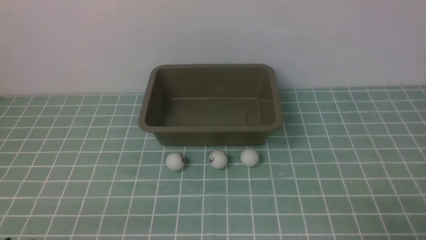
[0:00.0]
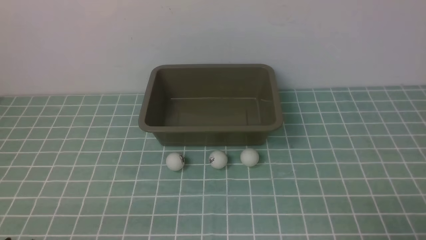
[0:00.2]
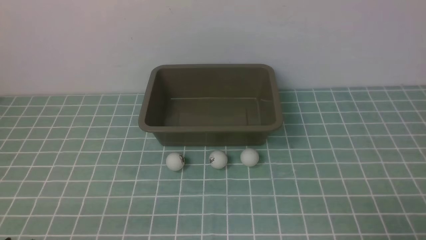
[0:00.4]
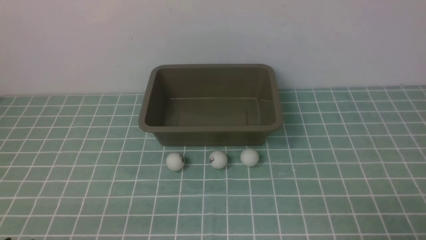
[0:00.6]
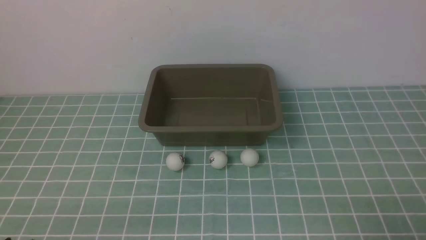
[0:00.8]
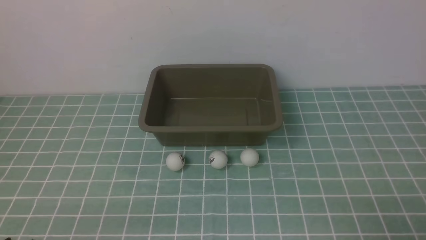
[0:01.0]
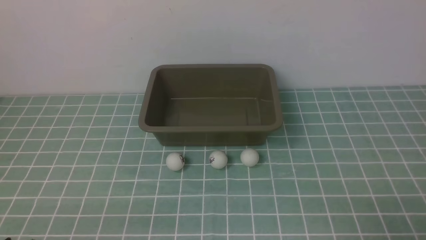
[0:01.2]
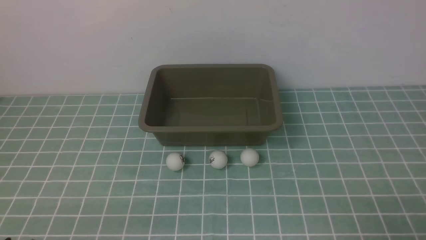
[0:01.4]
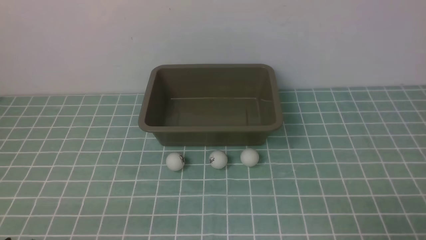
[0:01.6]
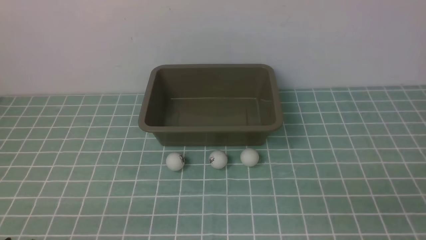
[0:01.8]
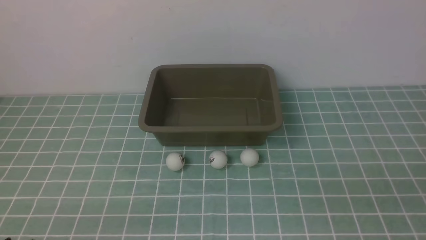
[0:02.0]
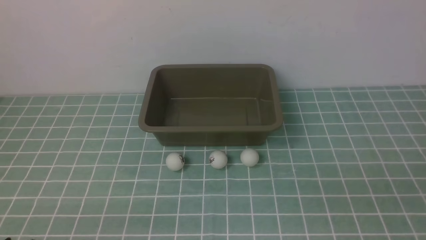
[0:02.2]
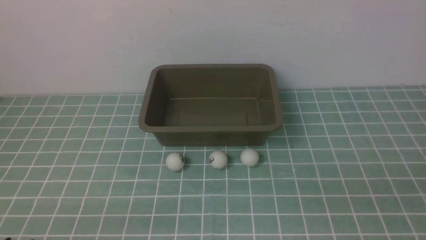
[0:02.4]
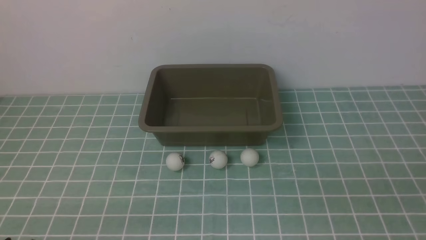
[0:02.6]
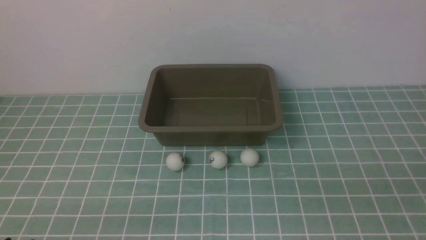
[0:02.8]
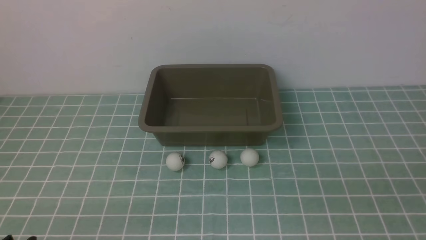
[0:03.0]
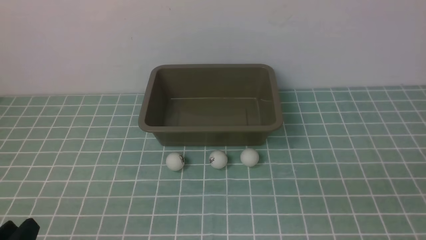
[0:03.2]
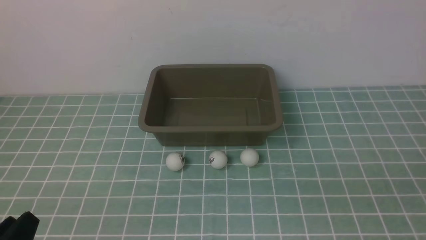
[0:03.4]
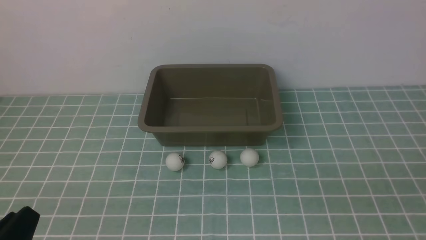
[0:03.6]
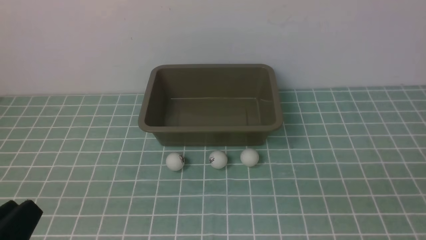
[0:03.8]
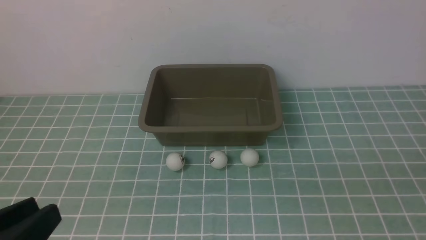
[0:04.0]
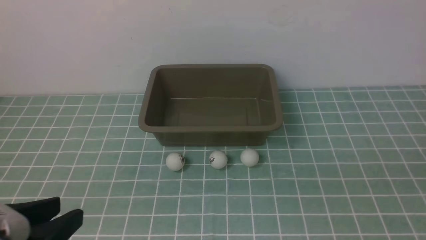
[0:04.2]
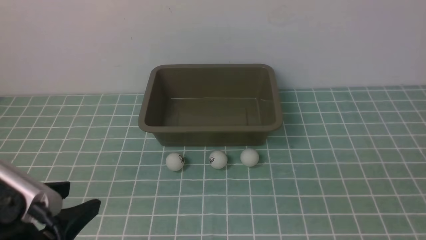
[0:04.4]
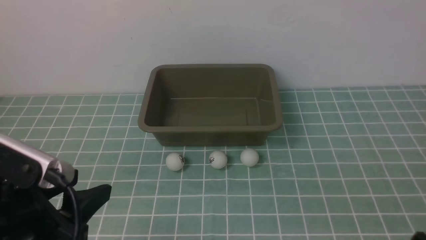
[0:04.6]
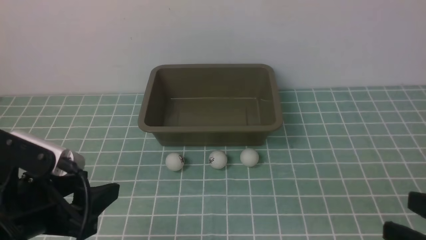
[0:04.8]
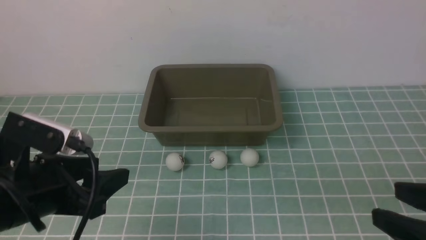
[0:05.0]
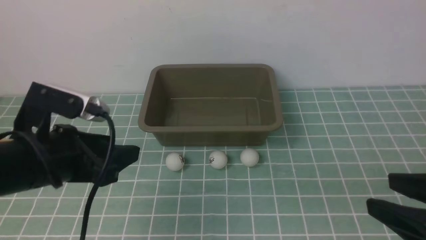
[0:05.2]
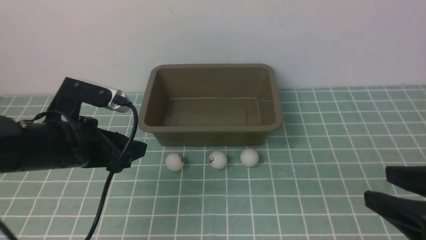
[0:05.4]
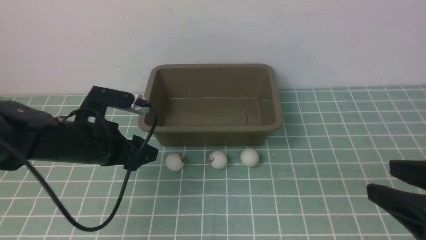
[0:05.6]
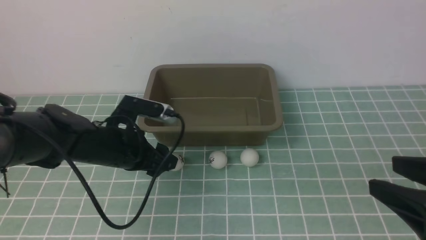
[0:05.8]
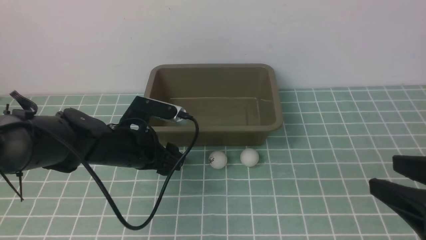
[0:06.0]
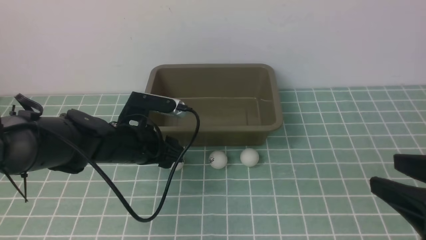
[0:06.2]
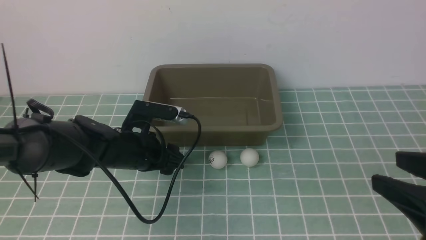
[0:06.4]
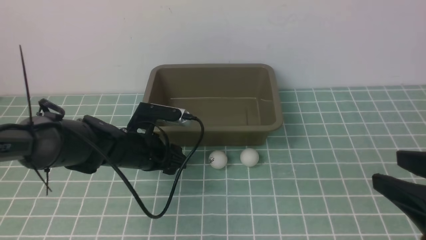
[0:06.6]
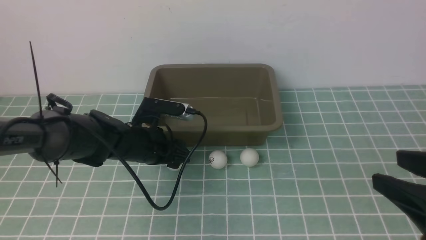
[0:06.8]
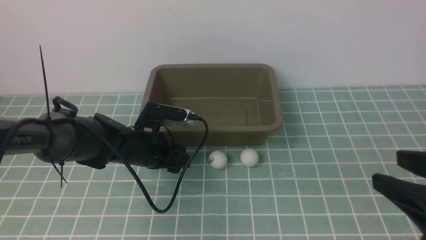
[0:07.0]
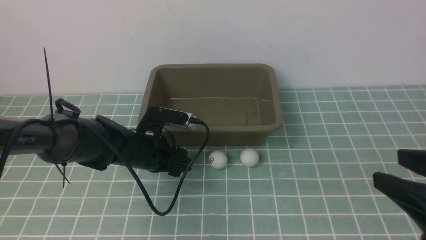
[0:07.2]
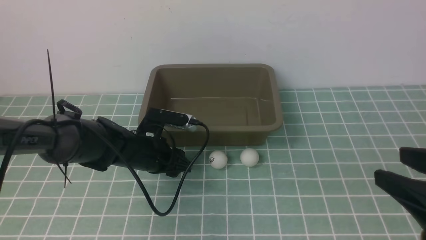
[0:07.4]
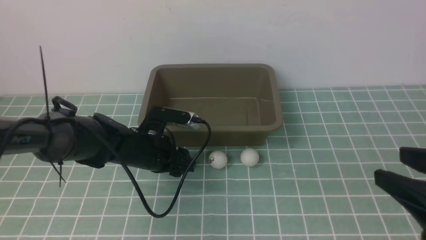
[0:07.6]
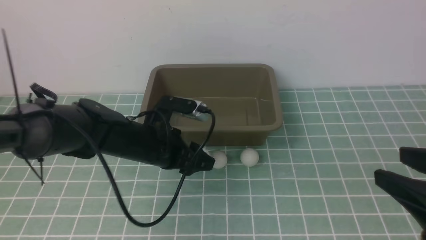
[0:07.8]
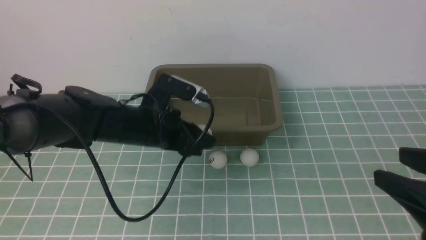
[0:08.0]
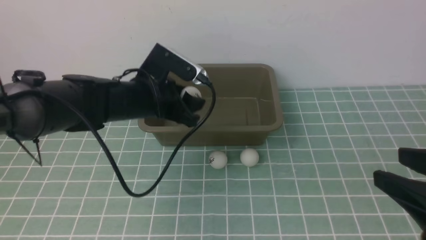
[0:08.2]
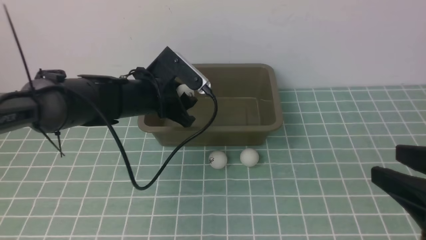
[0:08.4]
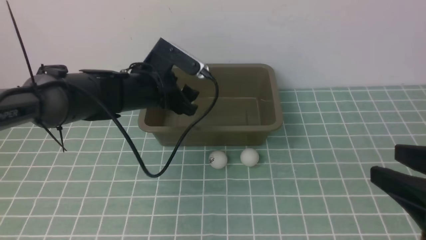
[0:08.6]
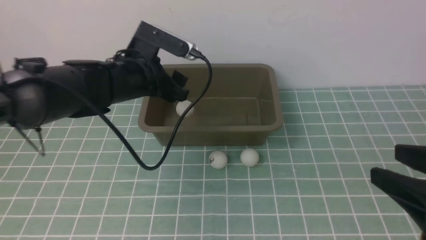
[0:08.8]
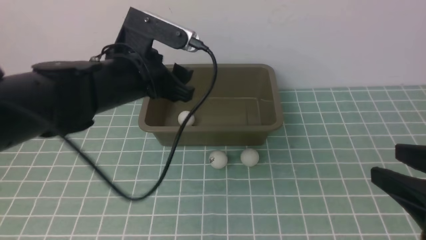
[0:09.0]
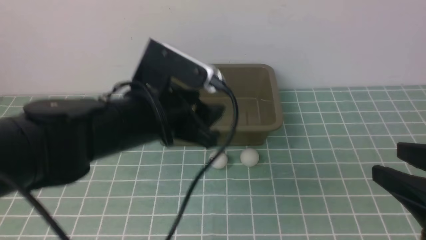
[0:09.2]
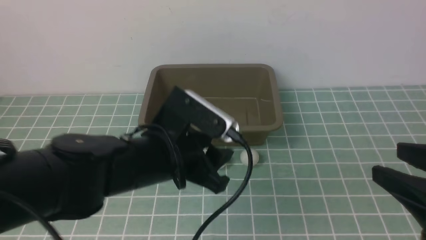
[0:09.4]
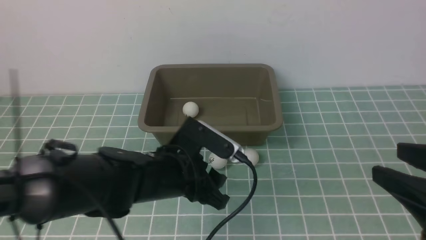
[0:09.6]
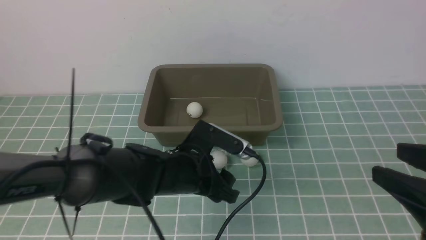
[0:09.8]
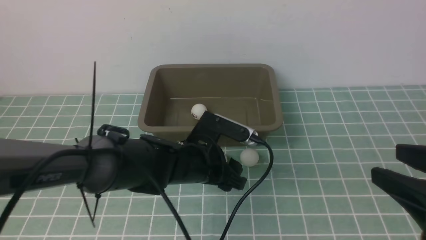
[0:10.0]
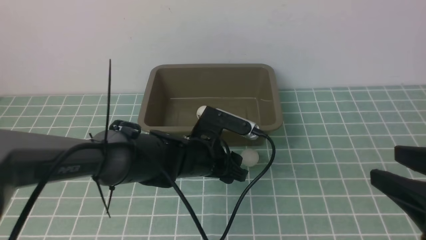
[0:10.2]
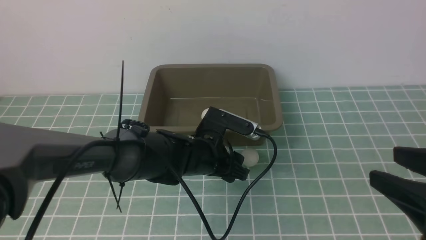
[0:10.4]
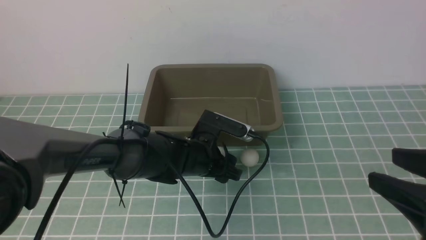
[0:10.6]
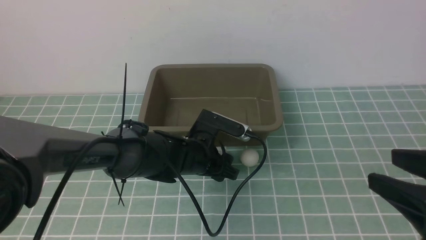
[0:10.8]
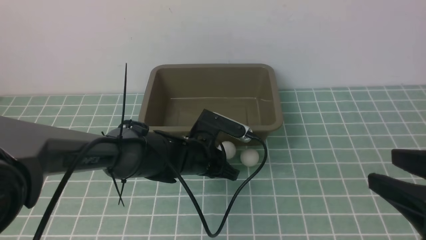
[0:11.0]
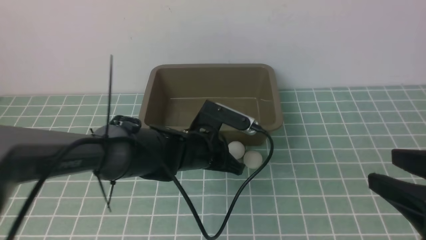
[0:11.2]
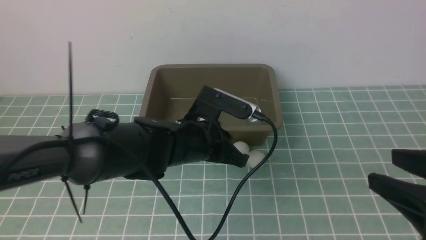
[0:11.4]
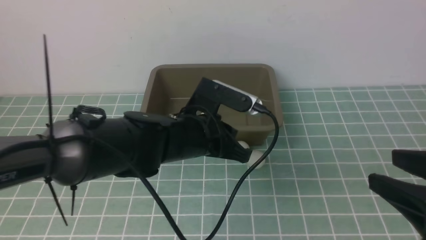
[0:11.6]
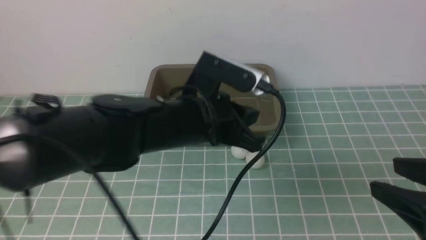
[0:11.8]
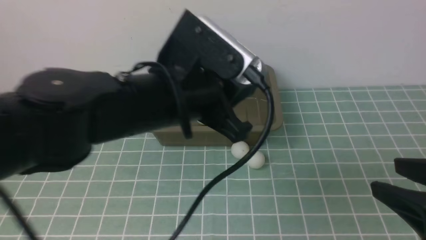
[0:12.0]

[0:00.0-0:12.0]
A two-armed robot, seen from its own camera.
Step, 0:00.0 to 0:07.8: use the left arm to clamp the table tennis ball closest to it.
Step, 0:08.2 to 0:08.8: use the left arm to put the table tennis ball into the box.
0:03.0 to 0:04.4: The left gripper heads upward, covering approximately 10 cm.
0:04.4 to 0:06.0: The left gripper heads forward and downward, covering approximately 25 cm; the right gripper goes roughly 10 cm forward.
0:06.0 to 0:07.6: The grippers make only small movements.
0:07.6 to 0:09.0: The left gripper moves upward, approximately 15 cm.
0:09.0 to 0:10.4: The left gripper shifts some 15 cm downward and to the right.
0:10.4 to 0:12.0: The left gripper travels upward and backward by approximately 20 cm, and closes its fingers.

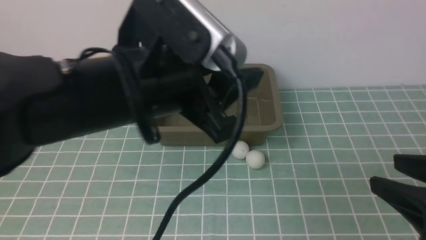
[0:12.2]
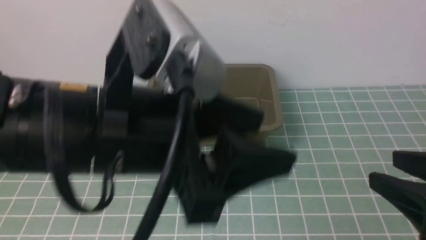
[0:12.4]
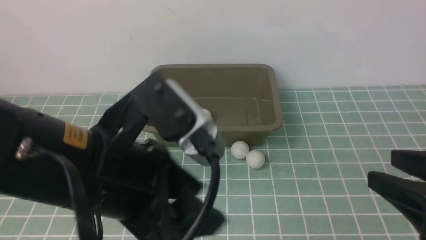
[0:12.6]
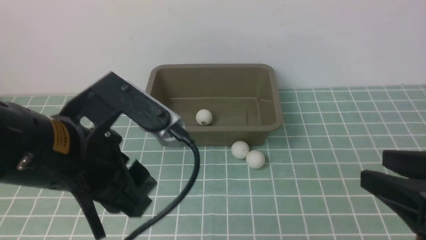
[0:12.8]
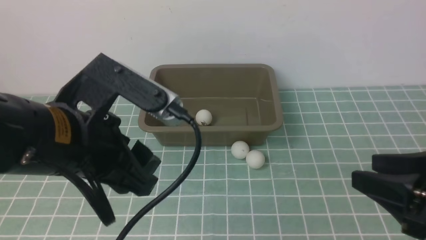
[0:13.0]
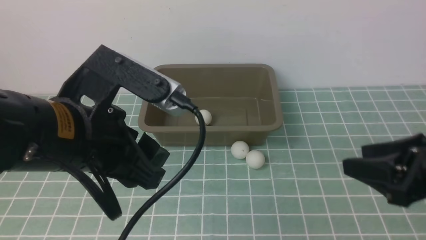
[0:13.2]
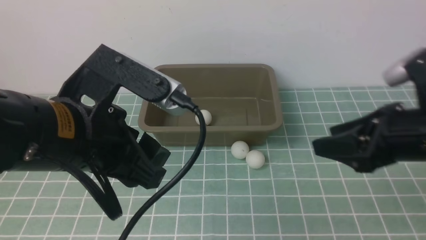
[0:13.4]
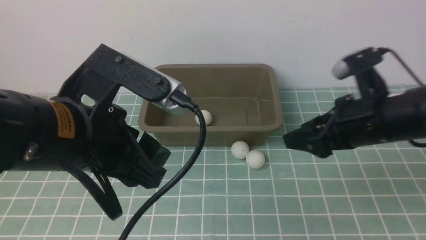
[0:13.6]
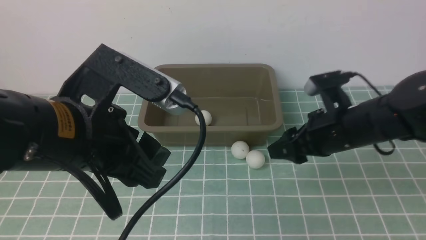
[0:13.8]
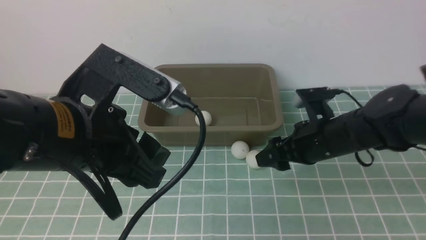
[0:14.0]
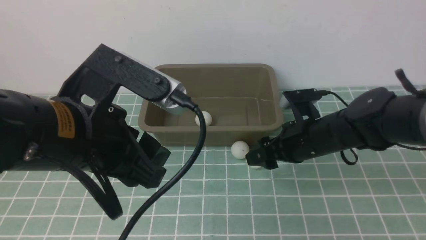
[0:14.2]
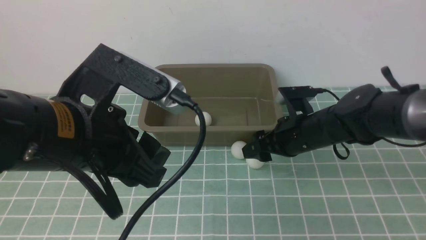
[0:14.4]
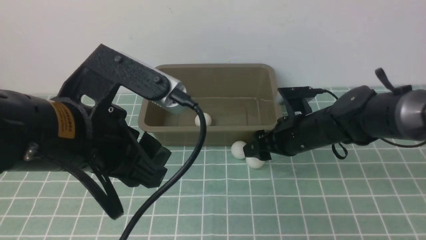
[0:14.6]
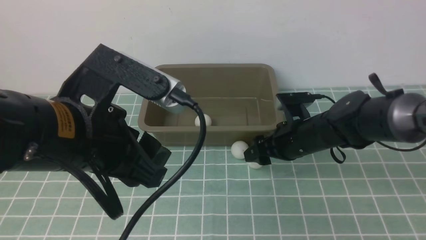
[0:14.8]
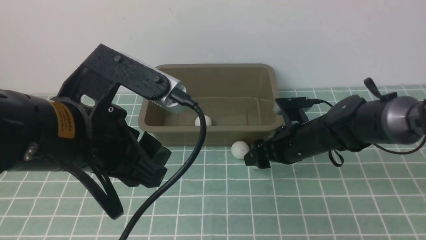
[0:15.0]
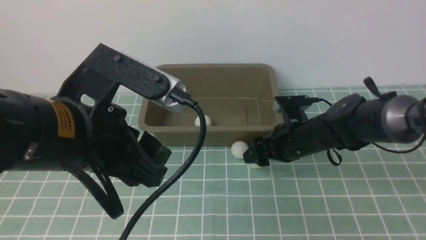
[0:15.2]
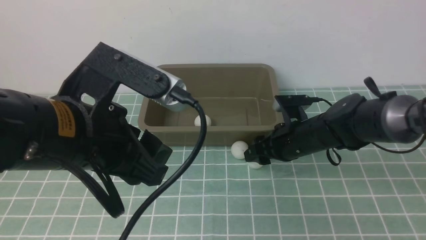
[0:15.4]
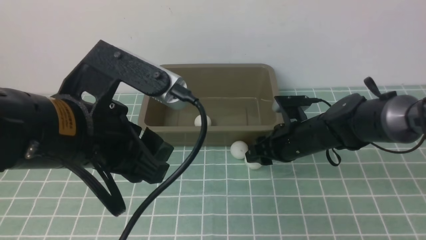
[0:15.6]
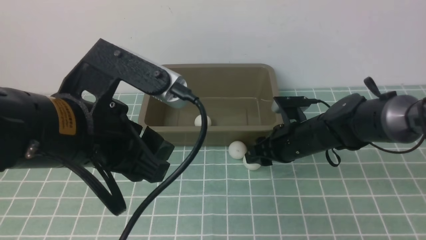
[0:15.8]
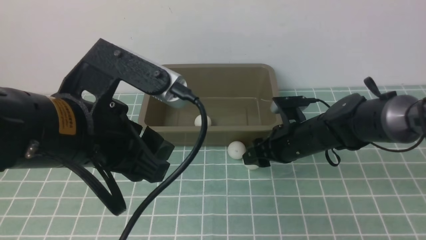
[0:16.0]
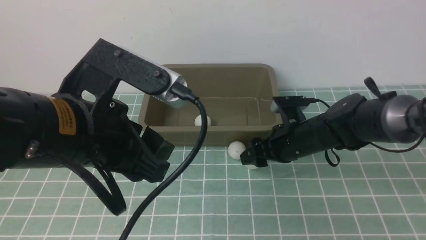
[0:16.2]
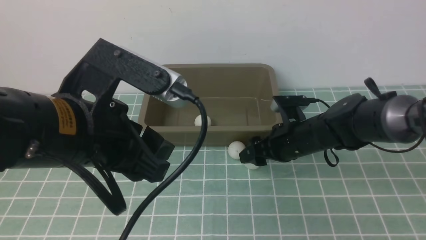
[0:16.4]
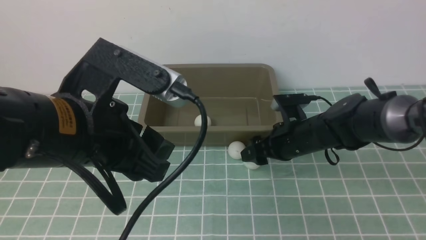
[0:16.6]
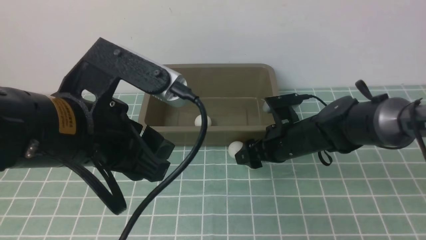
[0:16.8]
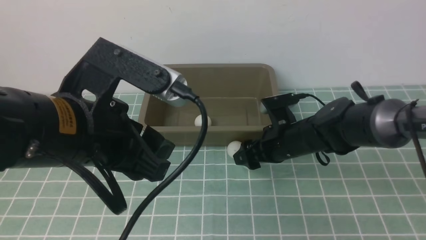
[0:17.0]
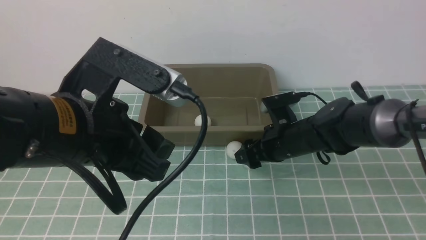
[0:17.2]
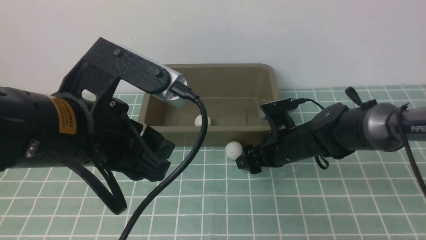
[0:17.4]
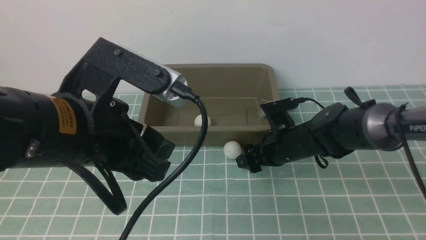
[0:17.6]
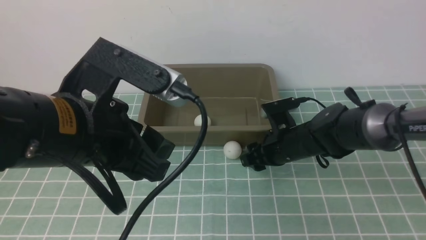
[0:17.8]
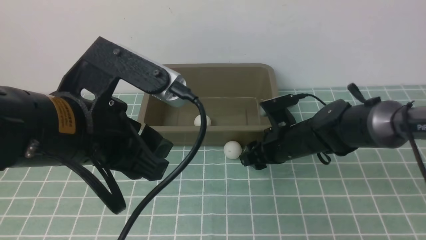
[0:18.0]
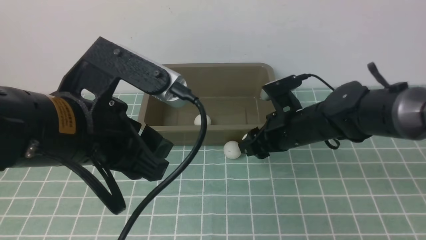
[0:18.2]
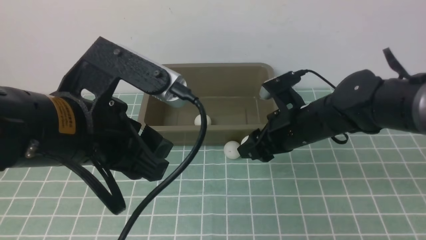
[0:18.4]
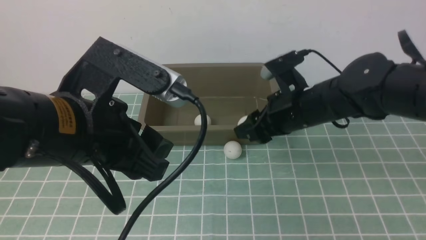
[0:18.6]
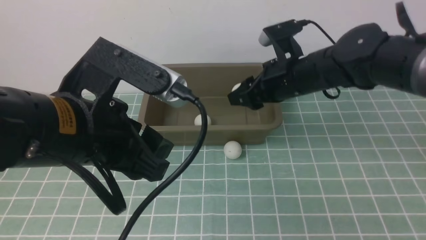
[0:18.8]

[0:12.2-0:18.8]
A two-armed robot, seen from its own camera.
Step, 0:12.2 to 0:18.2: use the right arm to clamp the table tennis ball closest to it.
0:12.2 to 0:13.8: The left gripper heads to the left, covering approximately 5 cm. The right gripper travels forward, to the left and downward by some 25 cm, and opens up.
0:13.8 to 0:15.4: The right gripper shifts about 5 cm downward.
0:15.4 to 0:17.2: The grippers stay close to where they were, moving slightly.
0:17.2 to 0:18.8: The right gripper heads upward, covering approximately 10 cm, and closes up.
